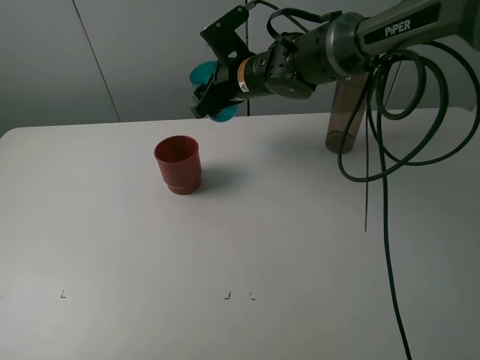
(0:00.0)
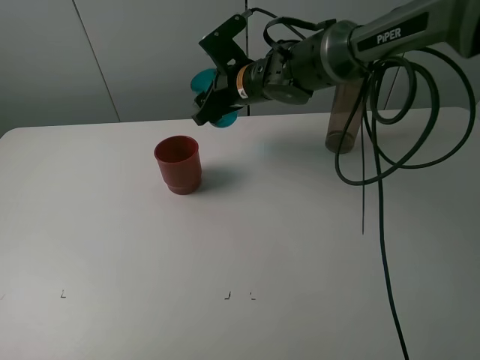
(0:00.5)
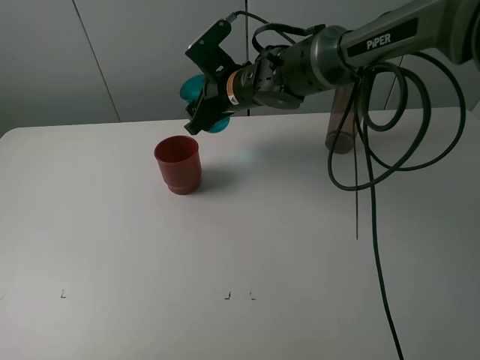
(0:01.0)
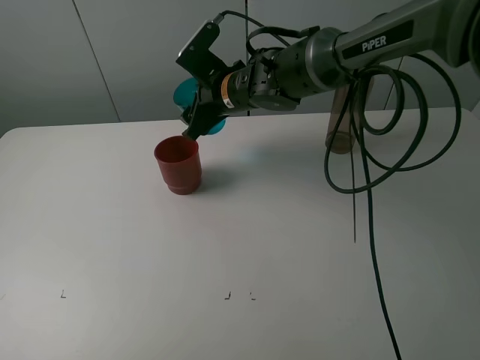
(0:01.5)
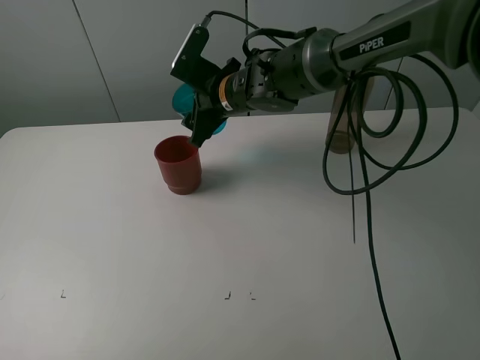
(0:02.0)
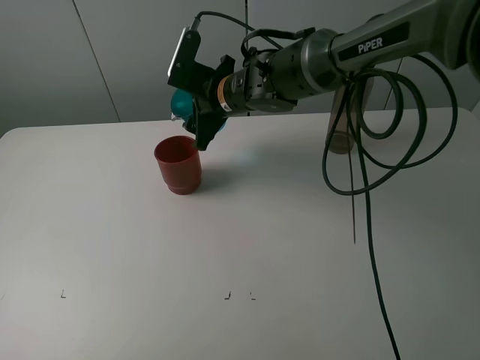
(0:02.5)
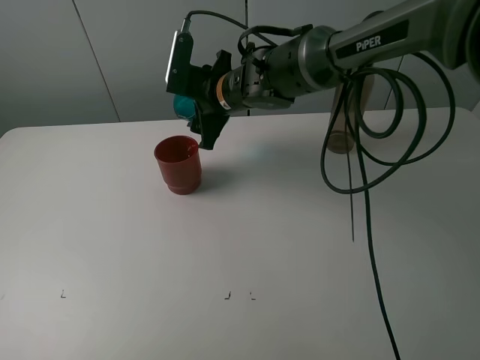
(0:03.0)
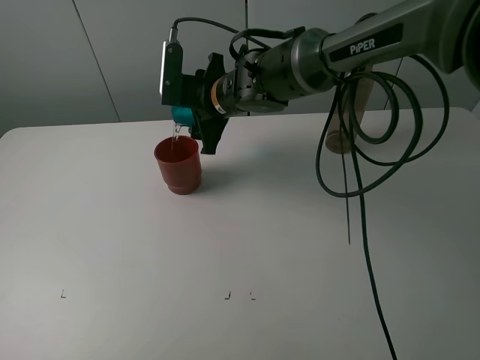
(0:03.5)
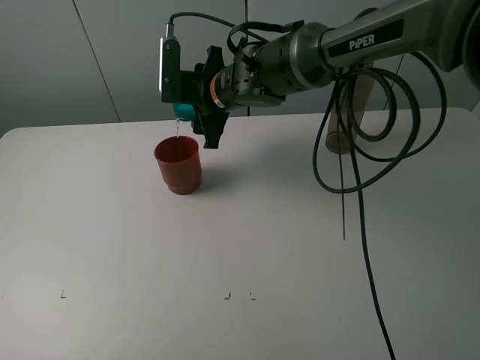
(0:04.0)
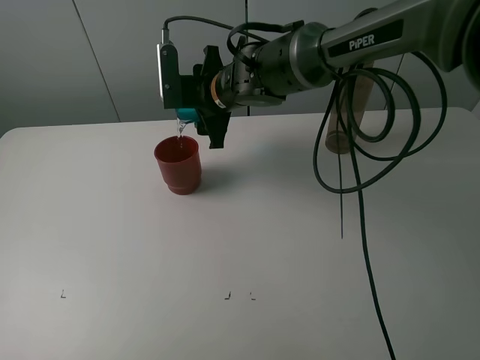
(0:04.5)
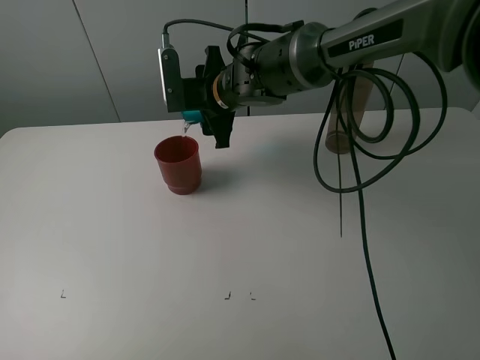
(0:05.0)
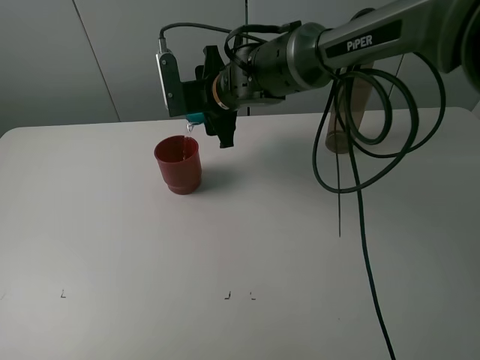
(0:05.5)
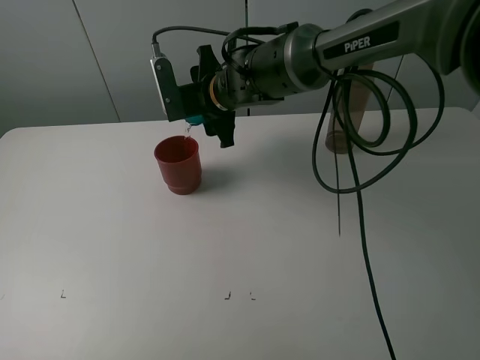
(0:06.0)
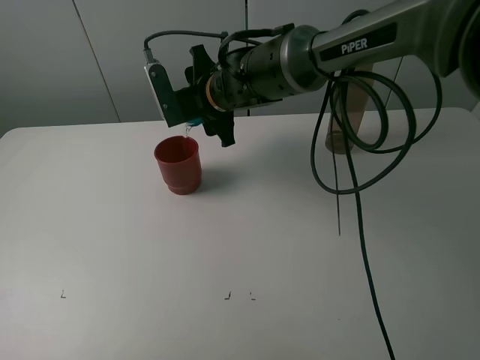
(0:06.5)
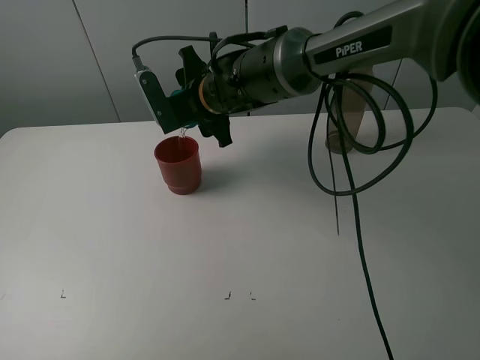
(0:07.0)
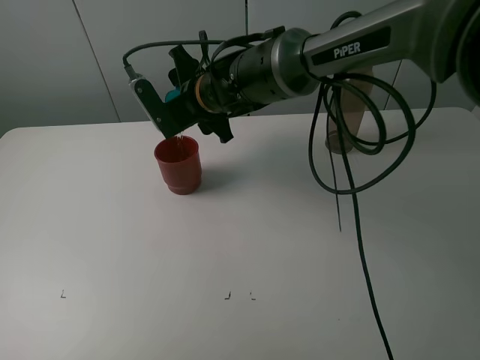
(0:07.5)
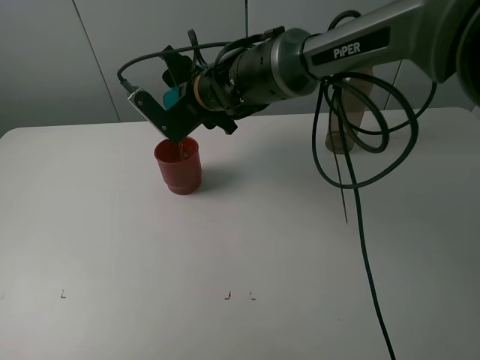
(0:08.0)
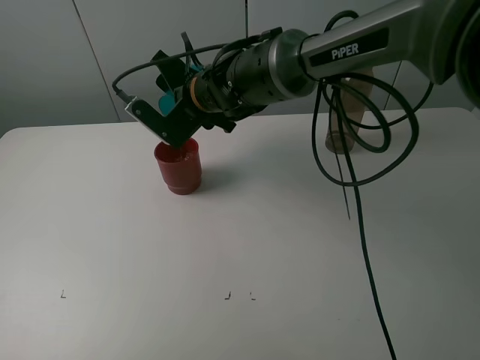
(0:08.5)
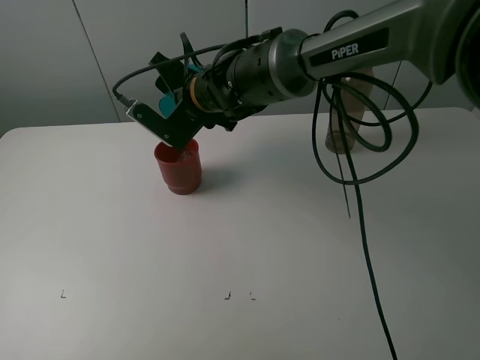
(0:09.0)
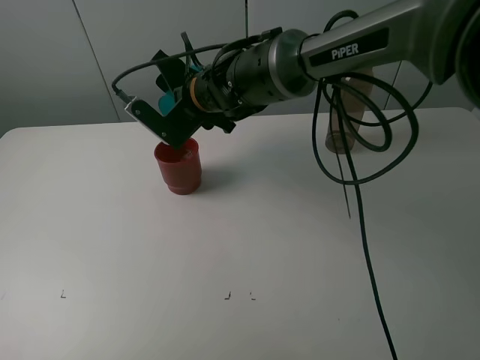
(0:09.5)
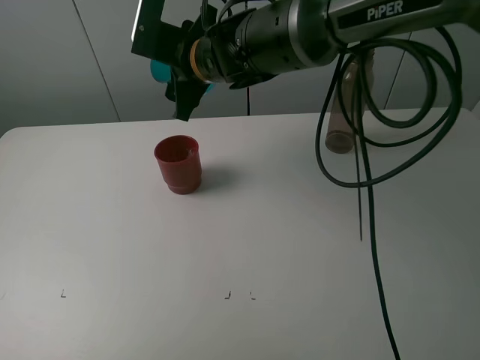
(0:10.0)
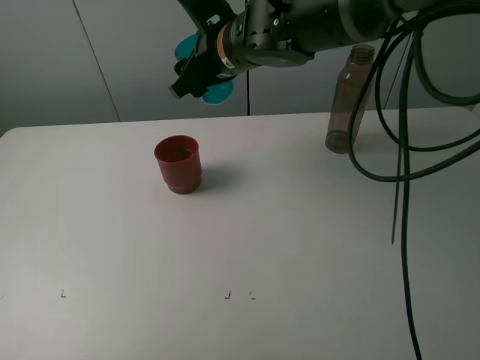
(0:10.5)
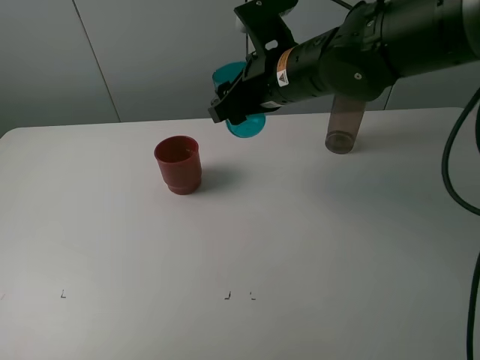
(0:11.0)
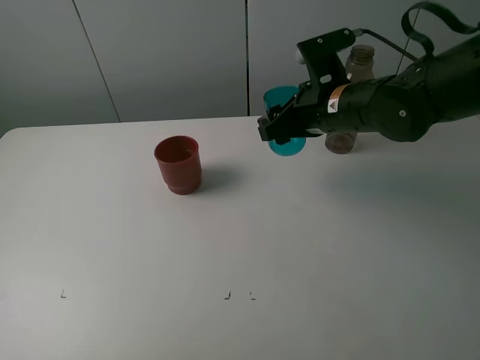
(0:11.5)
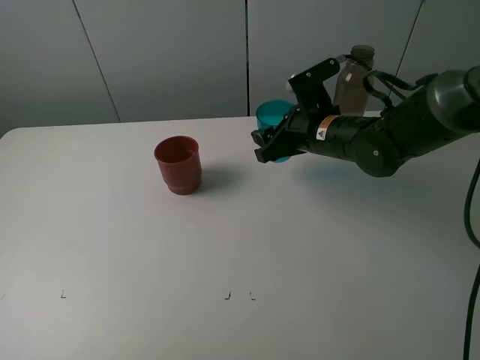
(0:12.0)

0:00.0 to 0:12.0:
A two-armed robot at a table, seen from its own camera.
Task of the whole recording: pick up the bottle and pour water into the cup, then pick up the cup containing water and pour it into another cup.
Step, 0:00.0 to 0:09.5: Pour water from blue cup to red cup with the right gripper.
0:04.0 to 0:06.0: The grippers make only small movements.
0:10.0 to 0:12.0: The right gripper is displaced to the right and downward by roughly 20 cm.

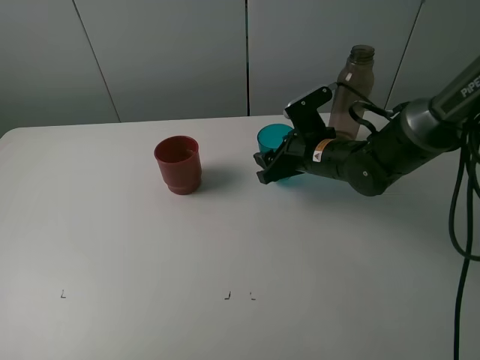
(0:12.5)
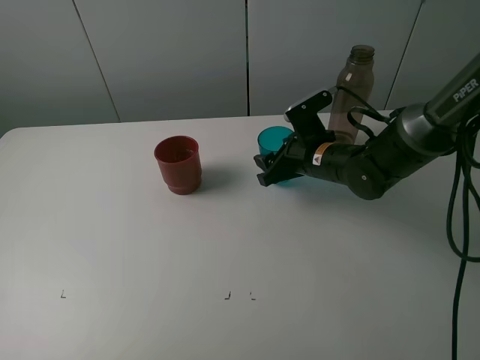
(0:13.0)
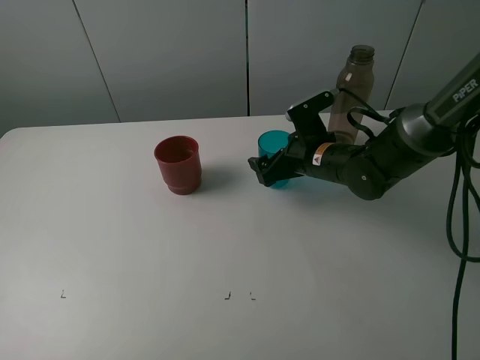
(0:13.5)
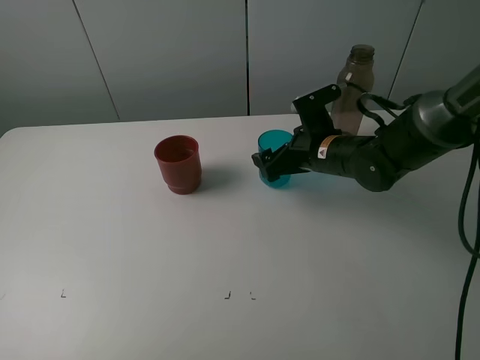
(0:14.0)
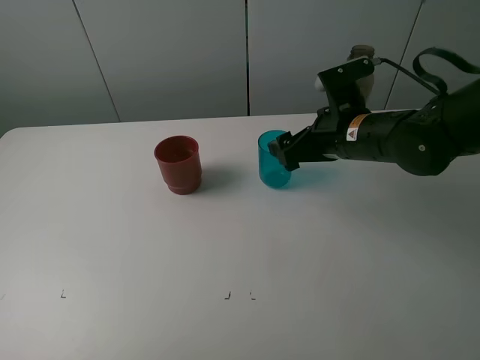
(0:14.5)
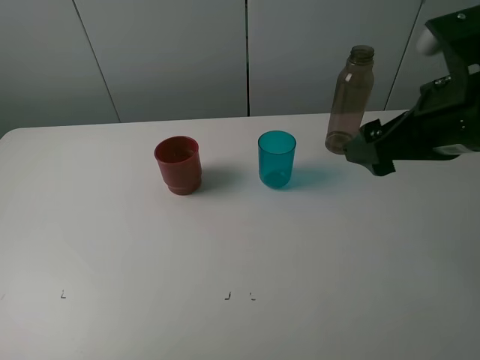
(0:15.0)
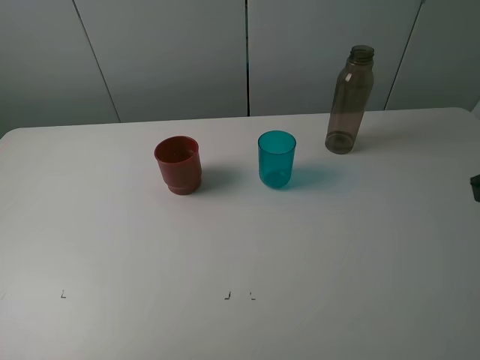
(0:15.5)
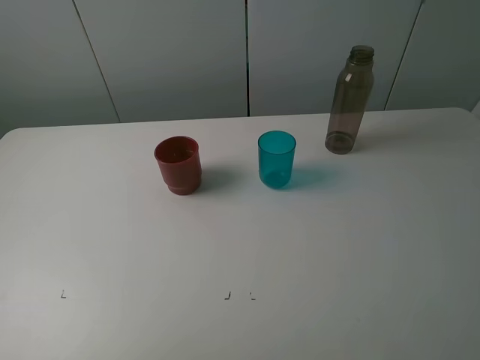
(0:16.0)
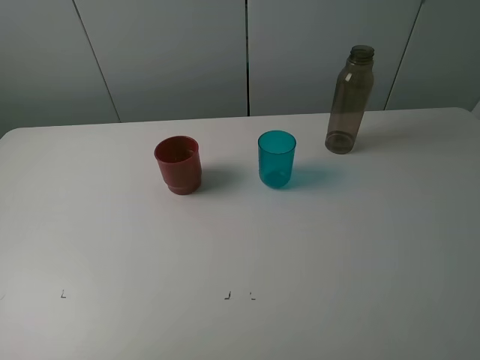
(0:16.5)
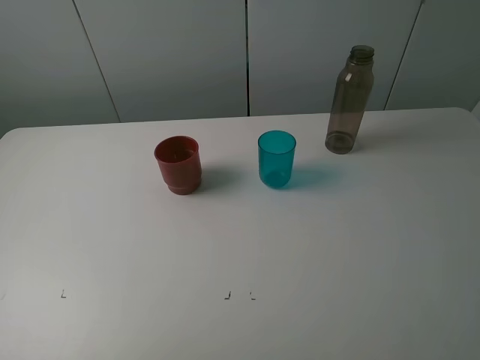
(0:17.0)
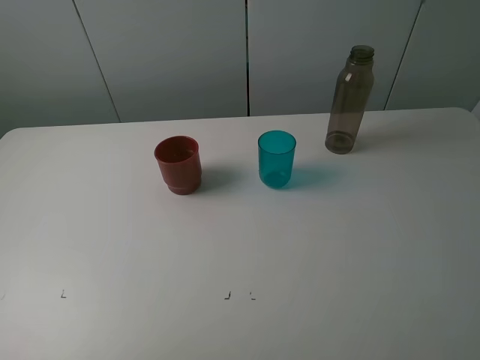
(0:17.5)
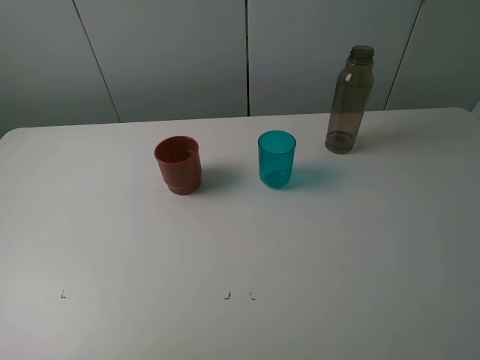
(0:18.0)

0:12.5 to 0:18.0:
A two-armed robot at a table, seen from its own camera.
Task of the whole recording: pick up the bottle and pour water into the cup, then pick up the cup containing water and pour it into another cup.
0:12.5 to 0:14.5: The right gripper travels upward by some 10 cm, and opens.
0:14.5 to 0:16.0: The right gripper goes roughly 35 cm backward, to the right and upward.
